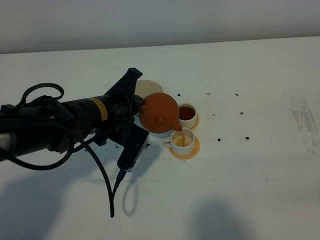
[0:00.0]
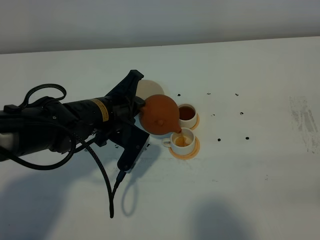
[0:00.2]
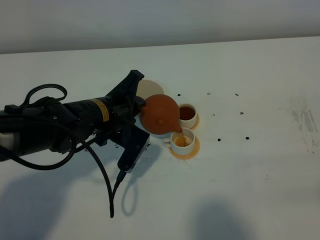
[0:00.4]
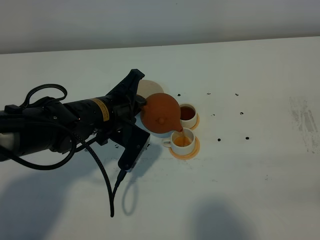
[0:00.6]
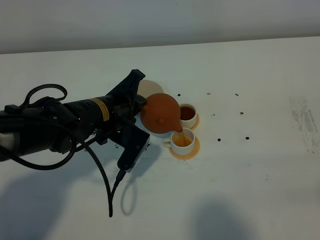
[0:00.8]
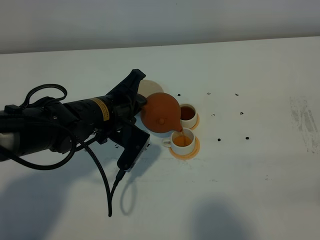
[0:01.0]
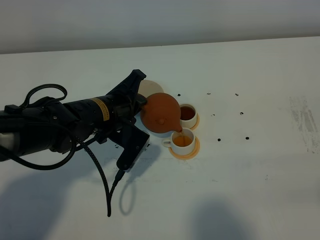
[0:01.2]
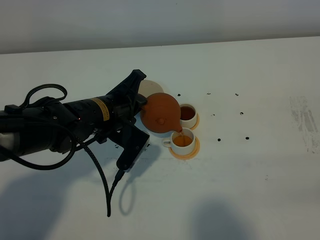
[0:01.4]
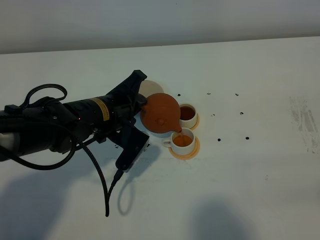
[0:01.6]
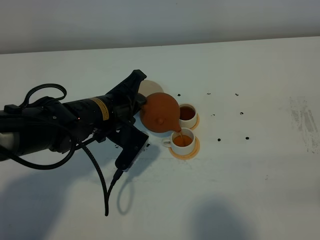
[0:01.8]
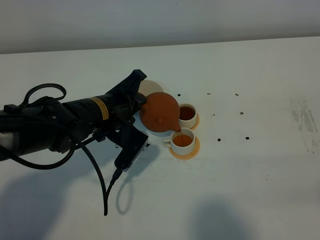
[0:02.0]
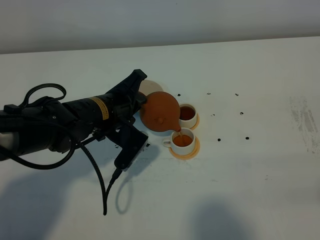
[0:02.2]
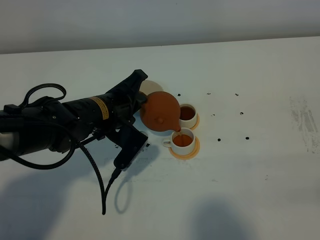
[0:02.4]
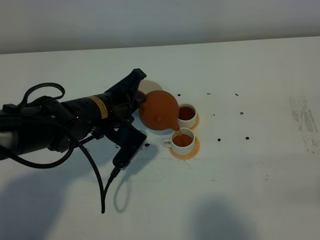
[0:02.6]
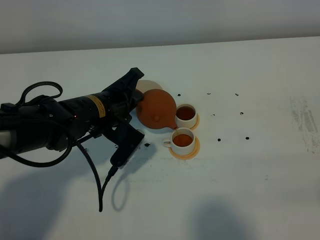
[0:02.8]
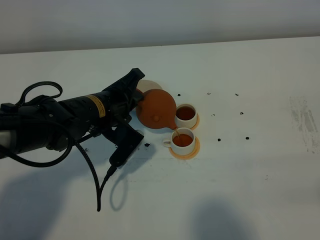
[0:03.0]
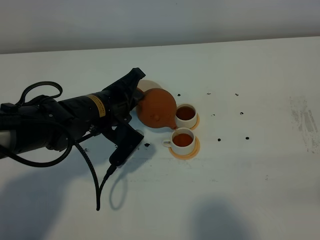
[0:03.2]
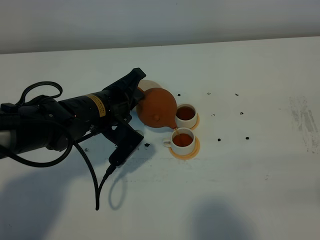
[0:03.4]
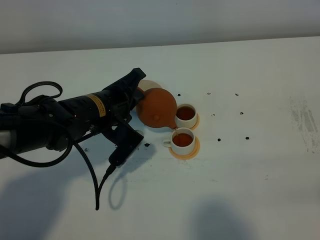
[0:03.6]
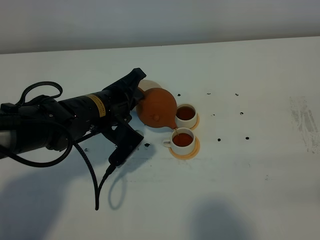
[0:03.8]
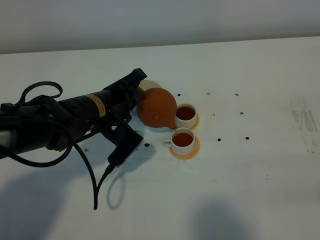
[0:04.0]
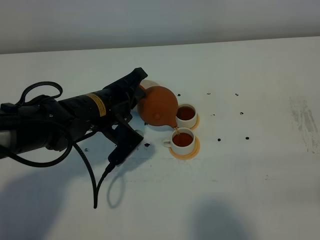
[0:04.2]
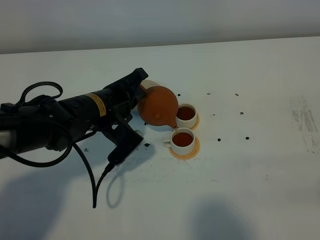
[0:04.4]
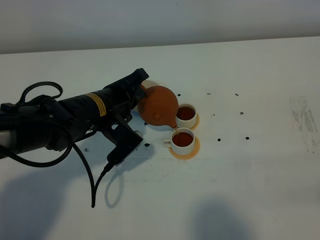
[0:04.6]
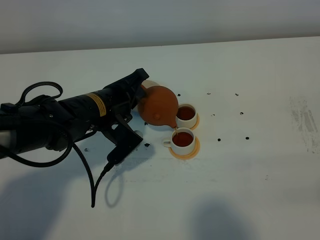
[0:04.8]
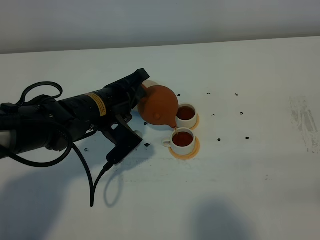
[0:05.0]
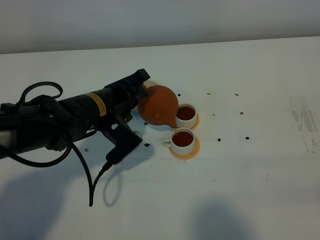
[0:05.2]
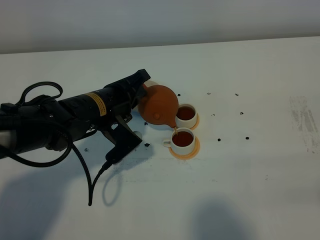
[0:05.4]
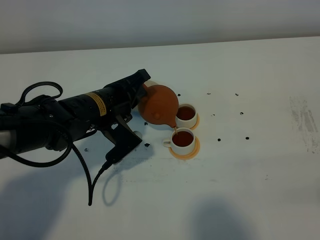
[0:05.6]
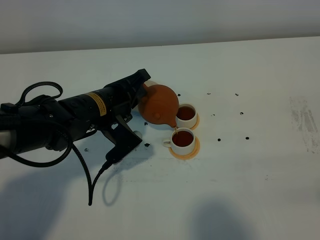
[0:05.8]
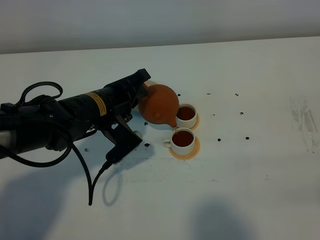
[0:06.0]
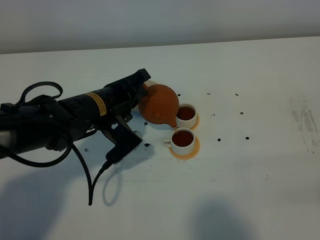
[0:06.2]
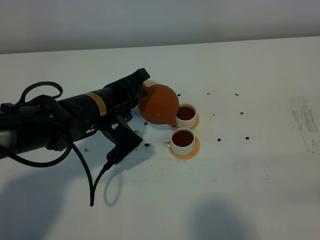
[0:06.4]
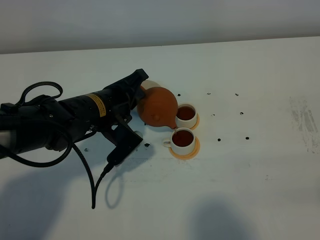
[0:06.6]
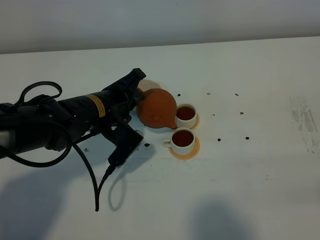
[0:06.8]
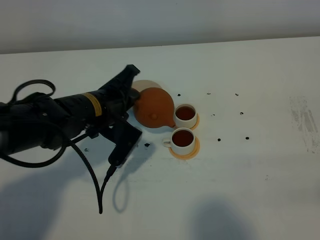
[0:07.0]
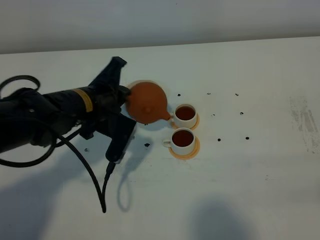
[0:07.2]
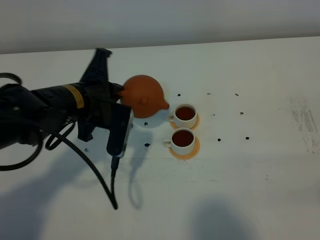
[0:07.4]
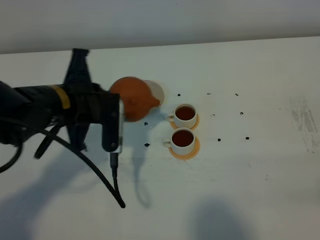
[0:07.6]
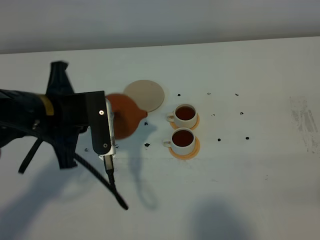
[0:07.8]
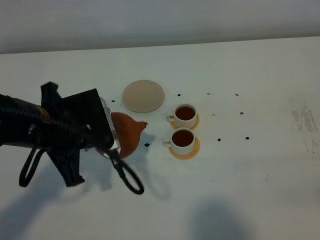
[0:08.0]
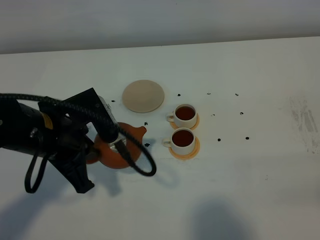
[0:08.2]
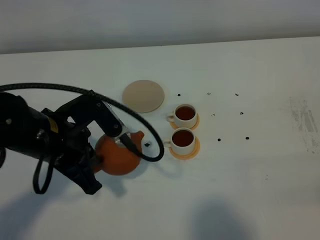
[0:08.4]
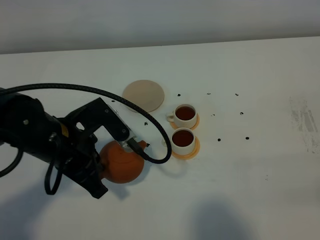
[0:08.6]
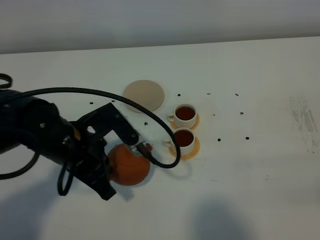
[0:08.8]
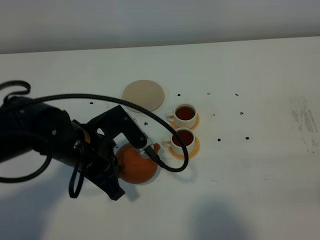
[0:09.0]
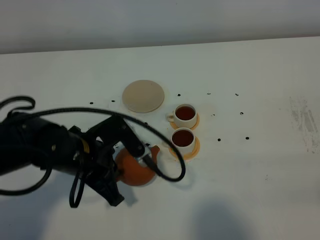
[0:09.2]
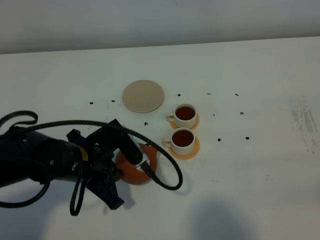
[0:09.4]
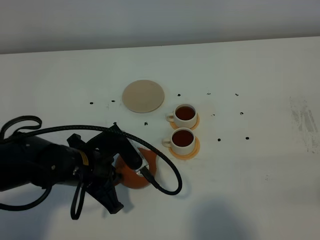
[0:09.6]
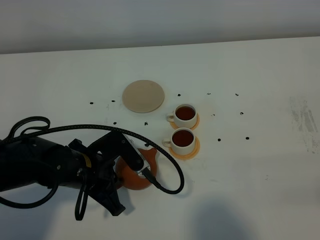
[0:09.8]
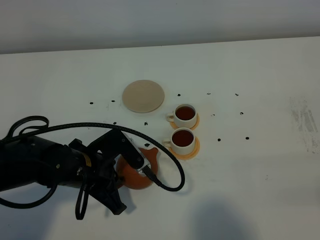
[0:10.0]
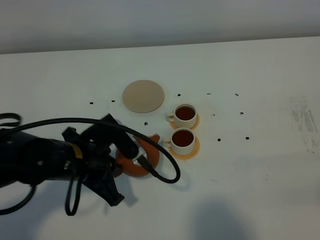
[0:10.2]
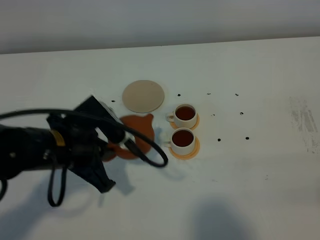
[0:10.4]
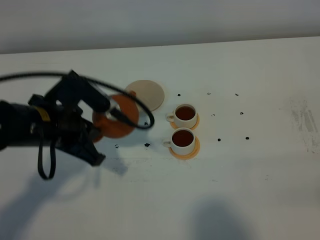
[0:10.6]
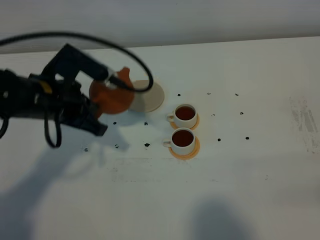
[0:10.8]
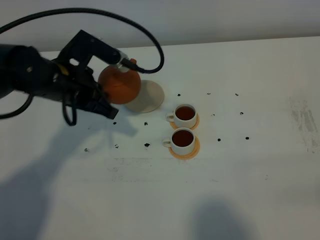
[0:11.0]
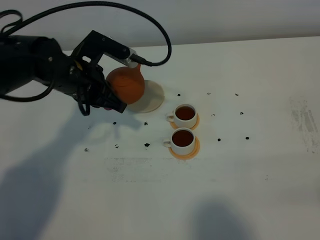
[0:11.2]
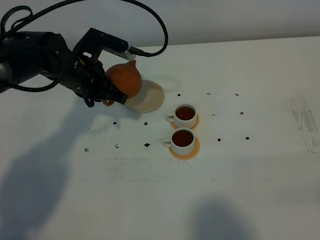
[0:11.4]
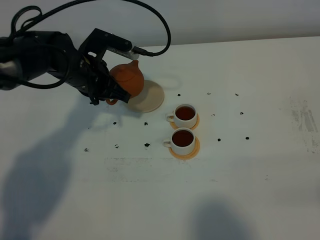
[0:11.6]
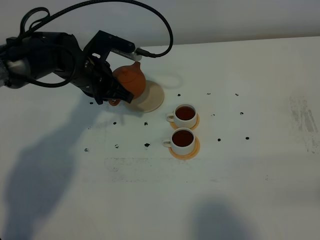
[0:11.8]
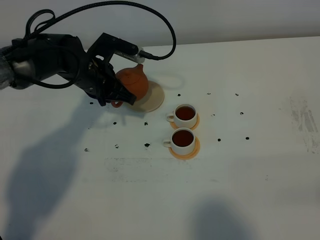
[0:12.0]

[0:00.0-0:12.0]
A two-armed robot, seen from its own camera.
Task of the whole recording: grasp the brown teapot and pour the tea into the two white teacups one by one, put the brown teapot back in its original place.
Step, 0:00.0 to 0:07.4: Pour tea into the teacup with the left gripper.
0:00.0 to 0:01.6: The two grippers keep their place.
0:01.6 to 0:04.4: The grippers stay close to where they were, moving slightly.
0:04.4 to 0:06.0: Both grippers stay about where they are.
0:06.0 to 0:07.6: The left gripper goes about 5 cm upward.
0:07.6 to 0:09.0: The left gripper moves downward, approximately 5 cm.
0:09.0 to 0:10.4: There are only small adjustments of the grippers.
0:10.4 to 0:12.0: The left gripper travels forward by approximately 20 cm.

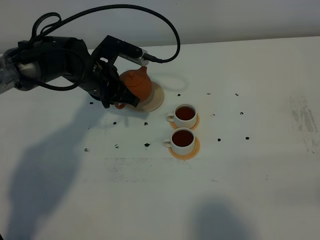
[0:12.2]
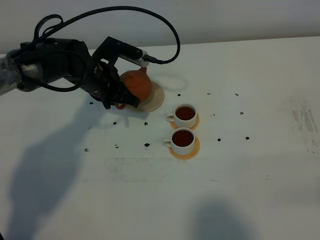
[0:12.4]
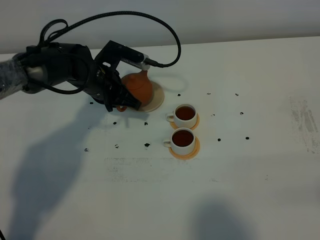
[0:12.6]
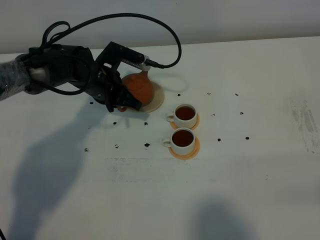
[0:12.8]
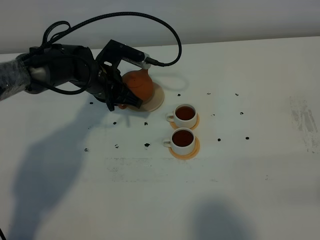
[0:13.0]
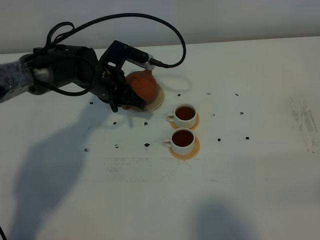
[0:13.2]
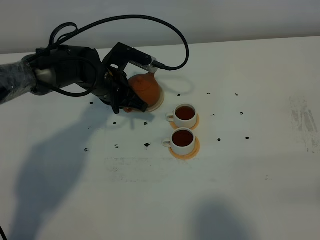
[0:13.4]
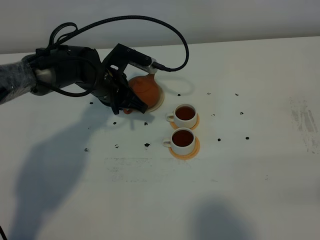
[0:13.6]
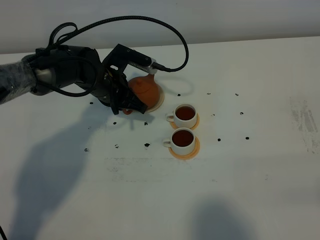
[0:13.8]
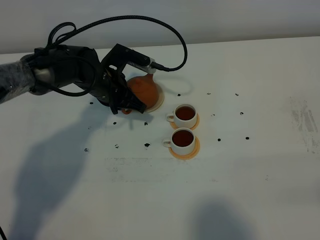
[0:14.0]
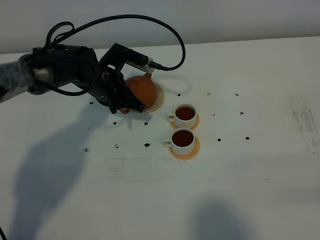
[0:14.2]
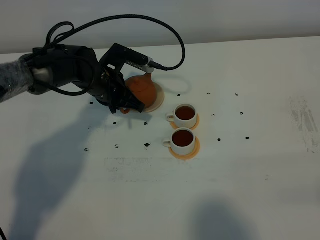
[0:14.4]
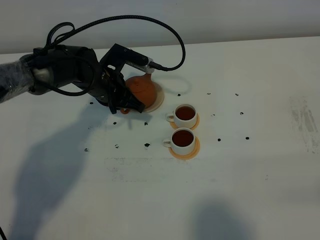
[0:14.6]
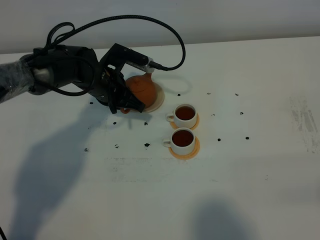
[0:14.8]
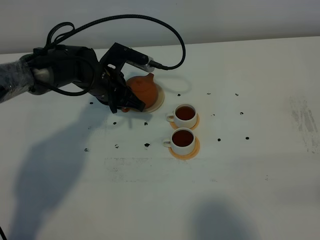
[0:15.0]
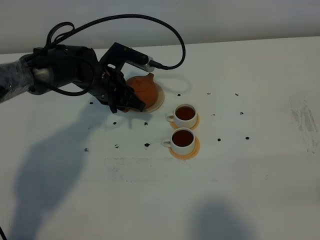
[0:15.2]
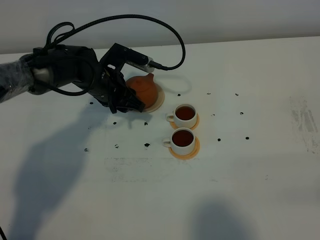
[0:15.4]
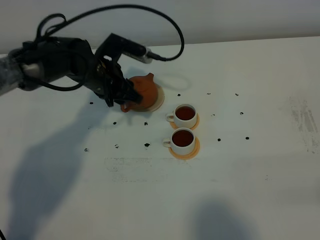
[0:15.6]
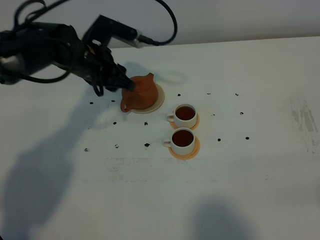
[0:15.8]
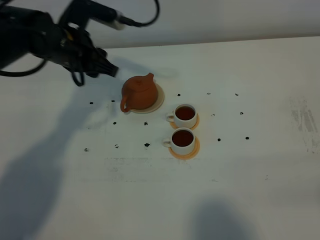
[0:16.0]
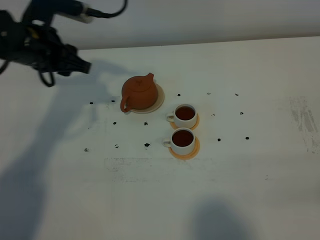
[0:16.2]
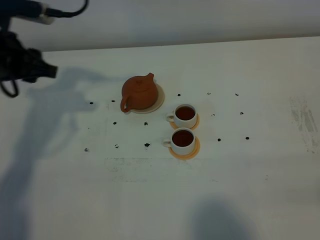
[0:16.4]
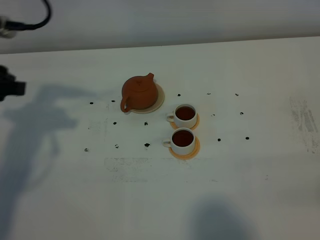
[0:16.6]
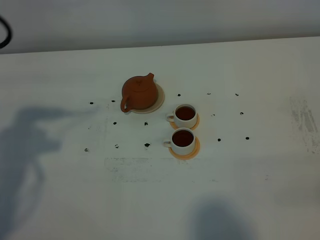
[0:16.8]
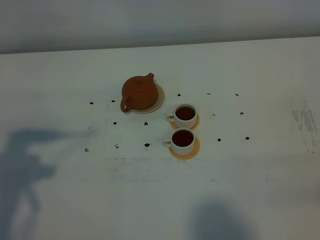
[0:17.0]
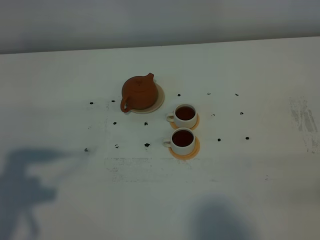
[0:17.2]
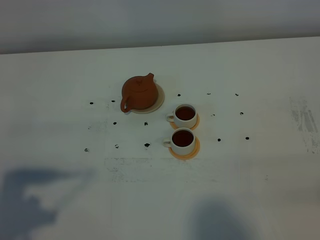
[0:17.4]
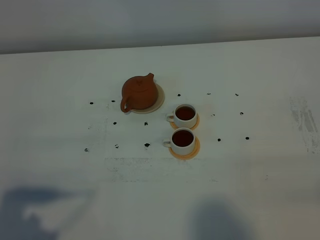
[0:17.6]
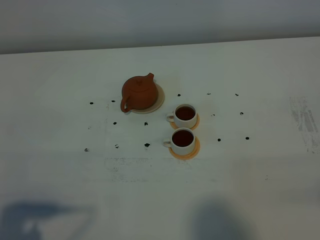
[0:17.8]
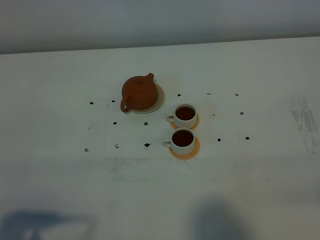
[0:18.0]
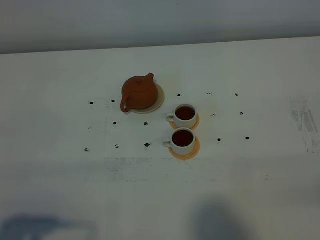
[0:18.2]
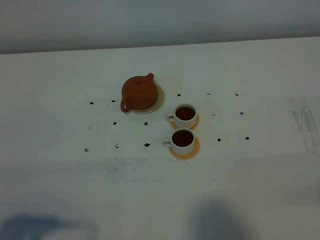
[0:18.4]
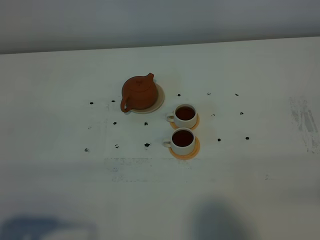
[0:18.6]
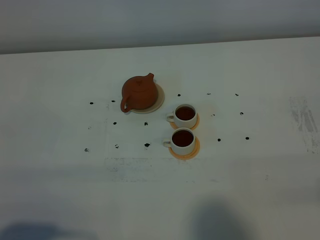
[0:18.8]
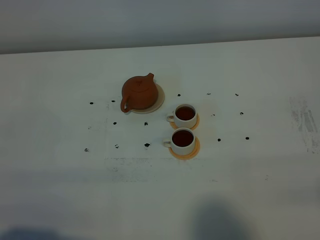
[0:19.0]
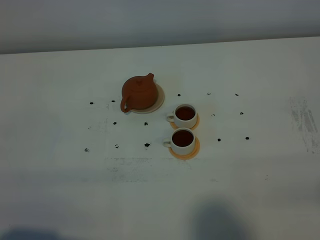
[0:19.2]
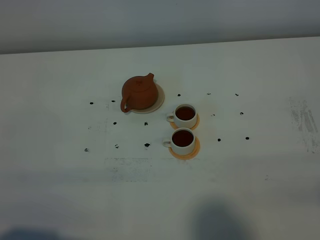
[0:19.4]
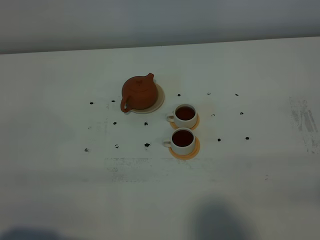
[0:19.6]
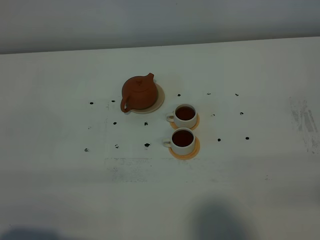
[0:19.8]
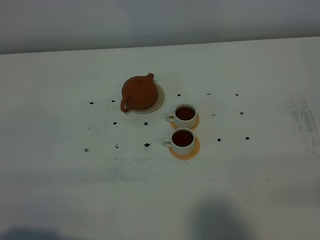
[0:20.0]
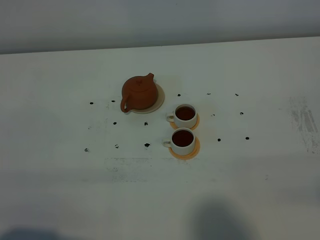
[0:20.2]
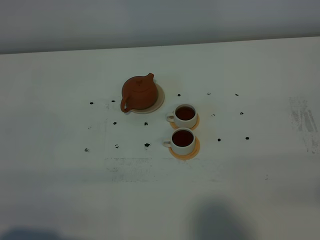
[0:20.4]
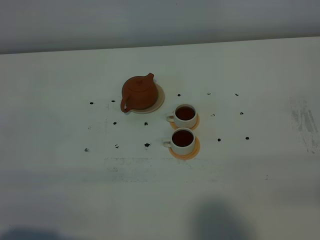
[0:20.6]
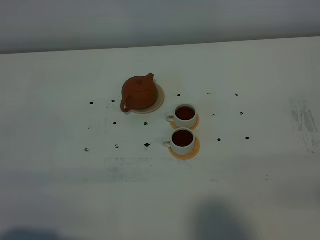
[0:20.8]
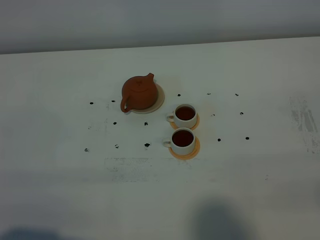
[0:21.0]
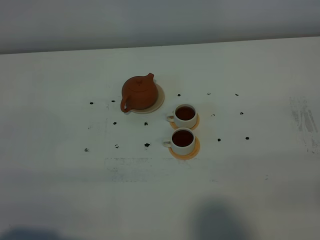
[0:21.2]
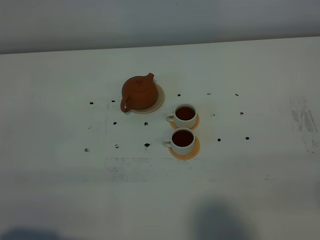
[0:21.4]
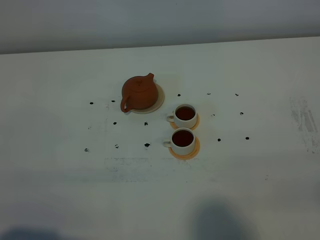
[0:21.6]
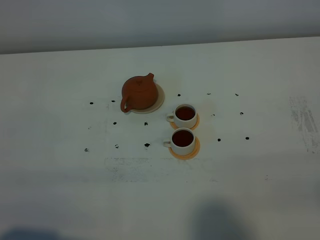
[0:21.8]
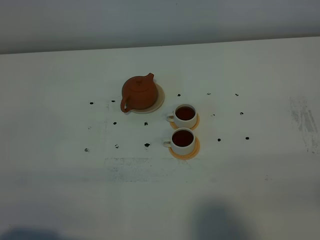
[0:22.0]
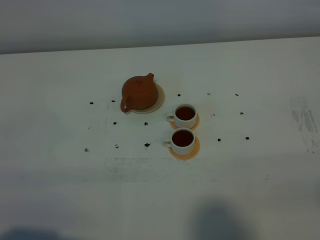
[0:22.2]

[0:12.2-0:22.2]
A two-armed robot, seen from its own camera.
Task of the whole recording: grasp the brown teapot and pour the tea into the two white teacups one by one, put the brown teapot back in its original place.
0:12.2 to 0:13.6: The grippers stay close to where they were, moving slightly.
0:13.6 to 0:15.0: The two grippers keep their place.
0:15.0 to 0:16.4: The left gripper is displaced upward, to the left and backward by about 20 cm, and opens its fingers.
0:16.4 to 0:18.0: The left gripper moves backward, approximately 30 cm.
0:18.0 to 0:19.4: The grippers make only small movements.
0:19.4 to 0:20.8: The two grippers keep their place.
0:20.8 to 0:22.2: Both grippers stay put.
